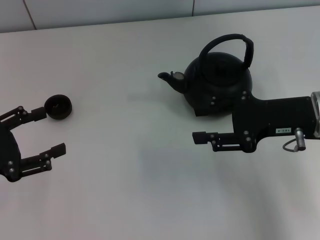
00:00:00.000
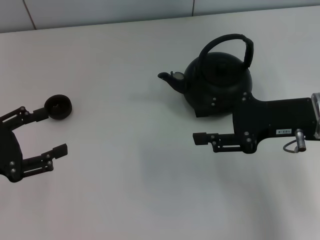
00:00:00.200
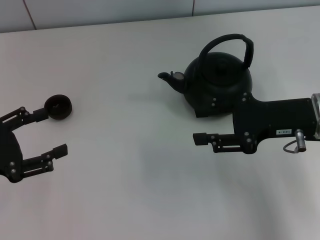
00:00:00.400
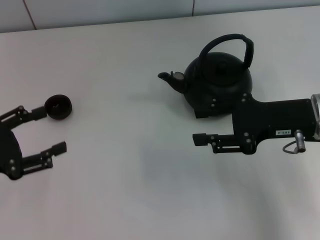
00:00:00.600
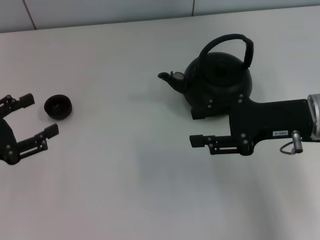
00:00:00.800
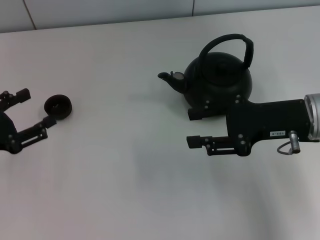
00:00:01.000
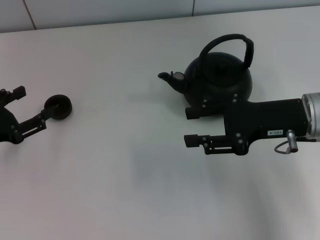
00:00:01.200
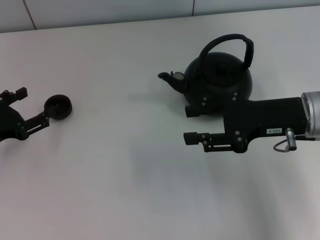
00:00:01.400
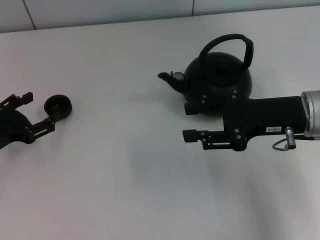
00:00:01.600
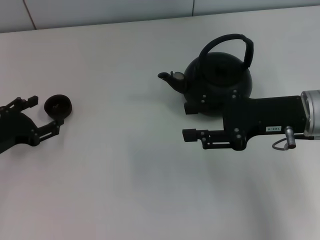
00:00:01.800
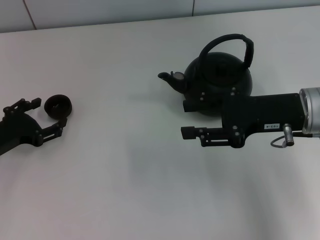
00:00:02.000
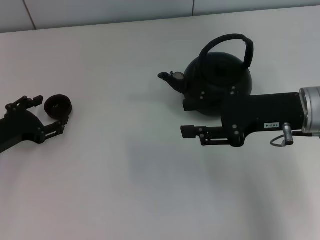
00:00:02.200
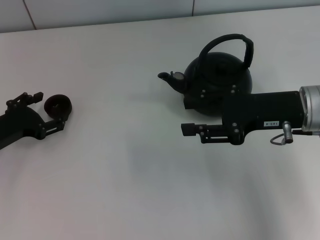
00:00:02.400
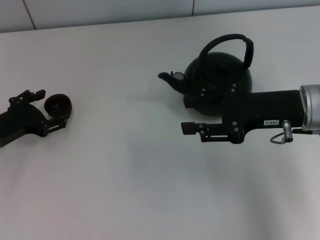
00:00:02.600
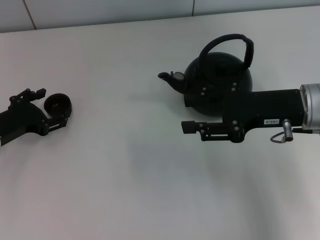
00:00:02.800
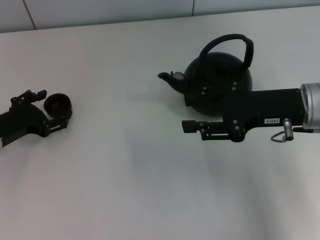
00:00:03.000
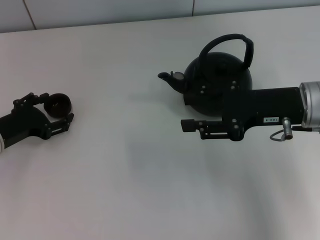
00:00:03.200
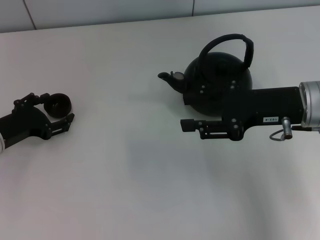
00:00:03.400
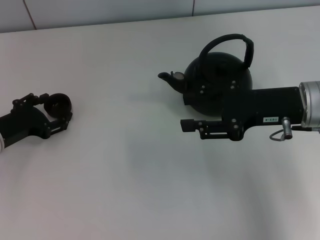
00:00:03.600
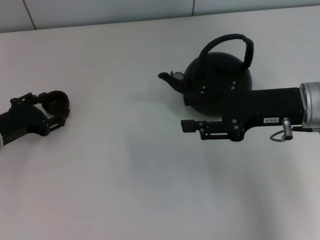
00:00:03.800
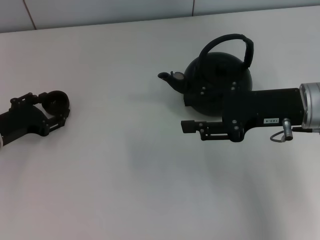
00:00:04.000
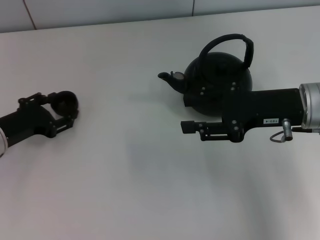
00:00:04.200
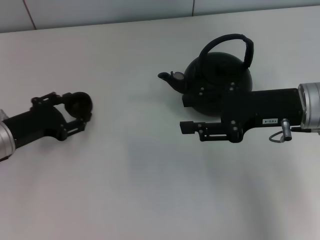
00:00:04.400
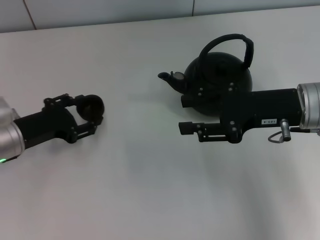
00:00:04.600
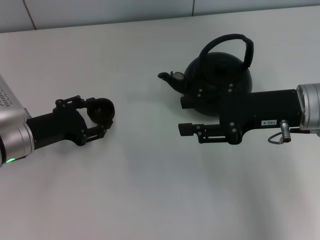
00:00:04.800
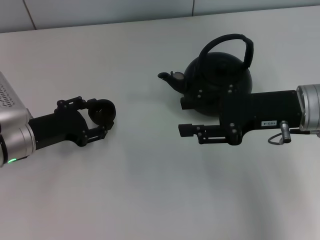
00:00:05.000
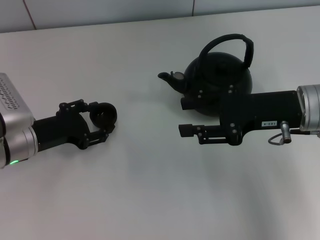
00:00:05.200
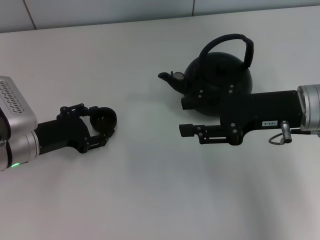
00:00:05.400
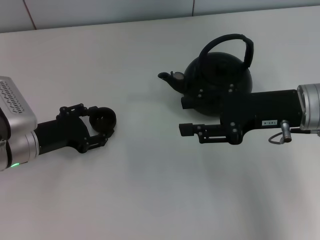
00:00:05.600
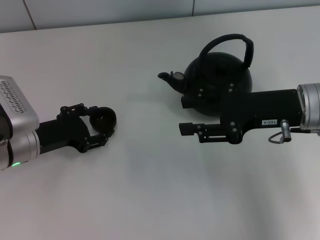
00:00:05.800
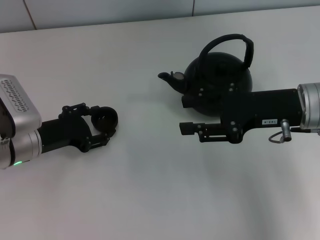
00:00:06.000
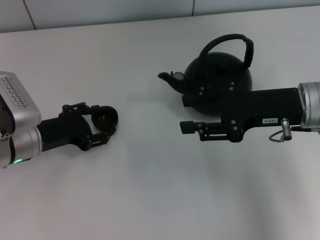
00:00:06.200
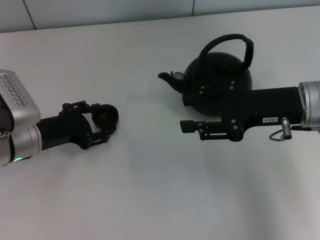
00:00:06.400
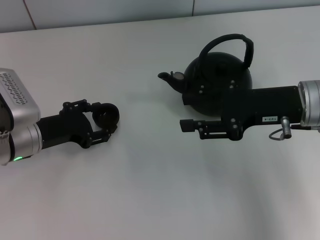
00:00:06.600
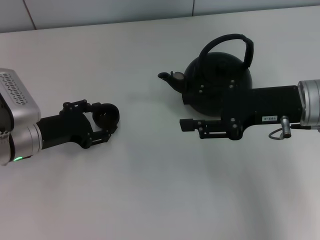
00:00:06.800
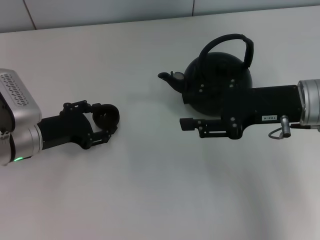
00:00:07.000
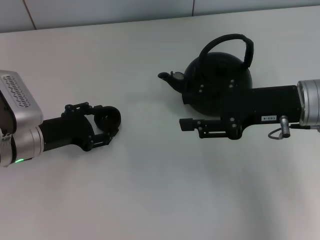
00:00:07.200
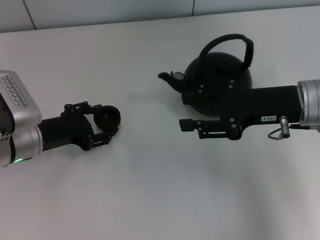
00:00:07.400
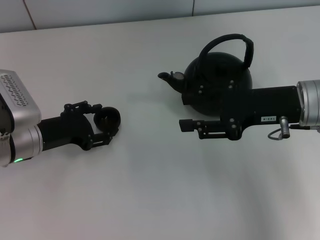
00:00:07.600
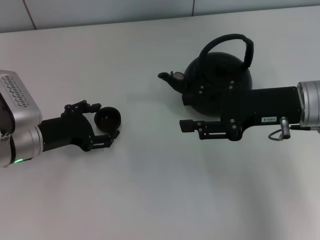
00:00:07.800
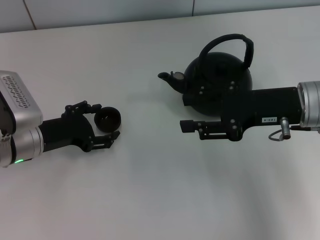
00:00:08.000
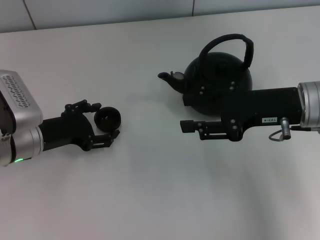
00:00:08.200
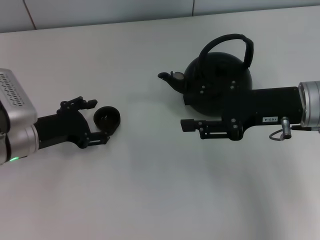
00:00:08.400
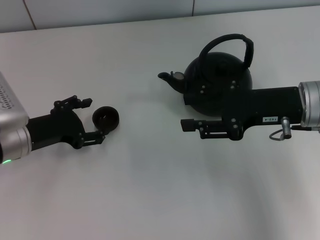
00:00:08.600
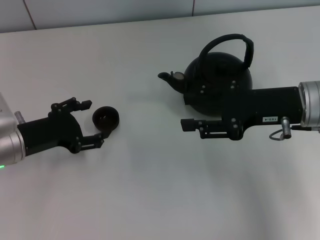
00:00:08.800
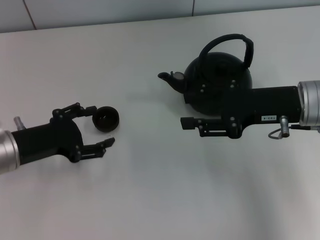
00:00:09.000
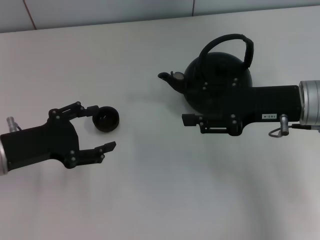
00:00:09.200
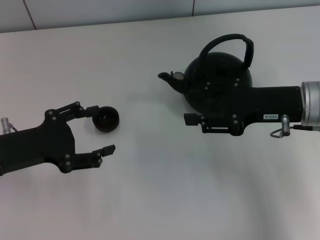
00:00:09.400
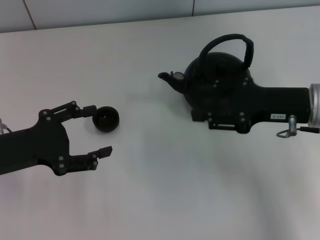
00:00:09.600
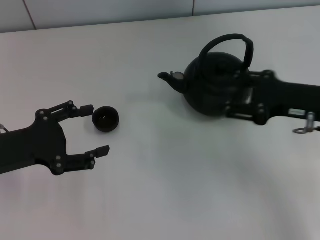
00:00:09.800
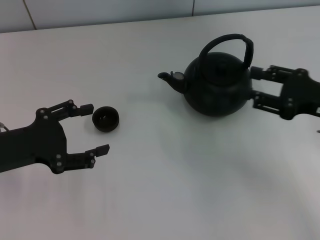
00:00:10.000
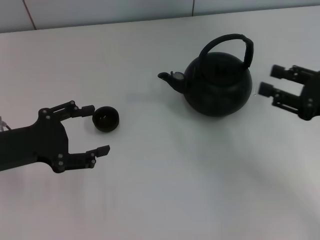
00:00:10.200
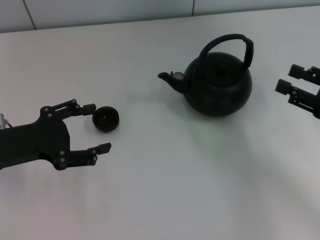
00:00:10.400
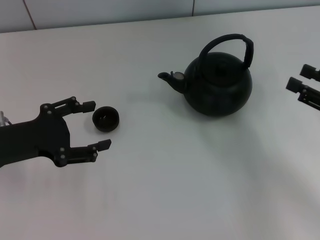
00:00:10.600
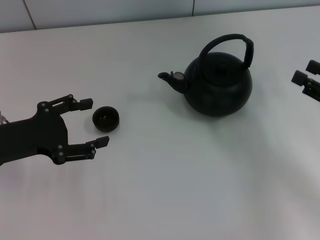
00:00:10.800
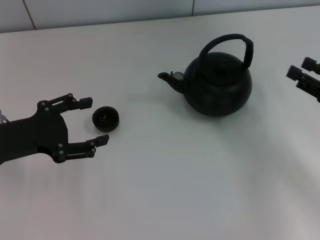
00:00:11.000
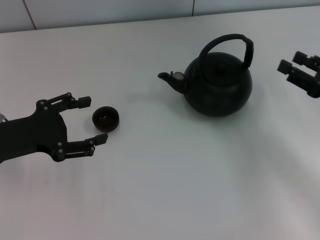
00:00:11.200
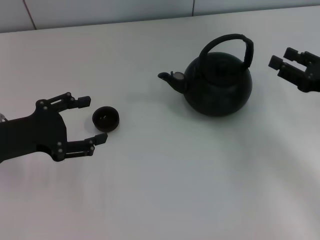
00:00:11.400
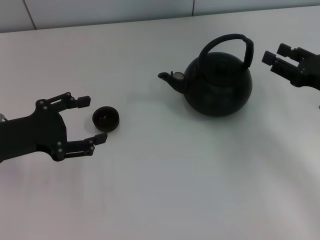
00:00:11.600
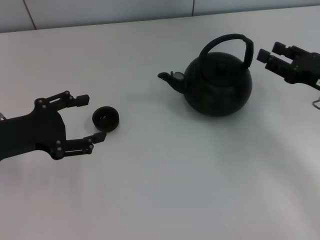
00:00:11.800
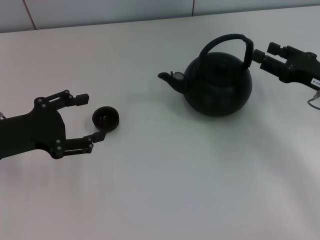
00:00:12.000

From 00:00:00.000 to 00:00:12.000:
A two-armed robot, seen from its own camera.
Task of the whole recording: Grasp the handle of the teapot with one hand and pour tea into the teacup.
Step, from 00:00:00.000 to 00:00:04.200: Pick up the teacup with the left gripper.
Step, from 00:00:04.400 to 00:00:08.800: Place the teacup in the center of view with the left gripper.
From 00:00:00.000 to 00:00:01.600: The left gripper moves downward and forward, some 10 cm.
From 00:00:01.600 to 00:00:03.000: The grippers move only a little.
From 00:00:03.000 to 00:00:04.400: The left gripper closes its fingers.
From 00:00:04.400 to 00:00:06.000: The grippers stay close to where they were, moving slightly.
From 00:00:06.000 to 00:00:07.600: Both grippers stay about where they are.
From 00:00:07.600 to 00:00:09.000: The left gripper opens.
From 00:00:09.000 to 00:00:10.400: The left gripper changes place by approximately 5 cm; the right gripper is displaced to the right and backward by about 15 cm.
From 00:00:10.400 to 00:00:12.000: The right gripper moves forward, roughly 5 cm.

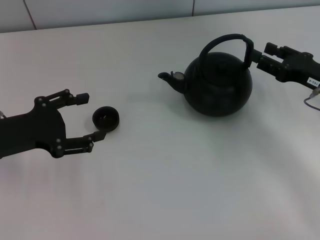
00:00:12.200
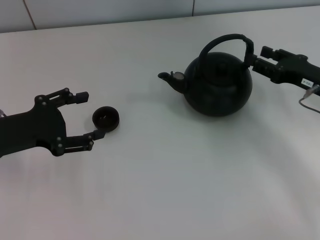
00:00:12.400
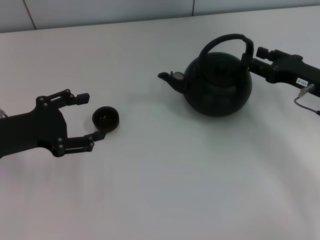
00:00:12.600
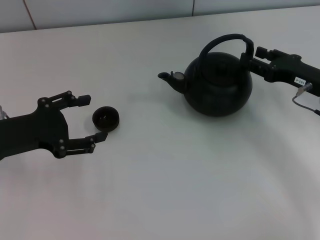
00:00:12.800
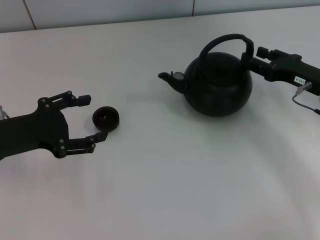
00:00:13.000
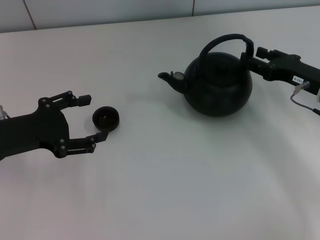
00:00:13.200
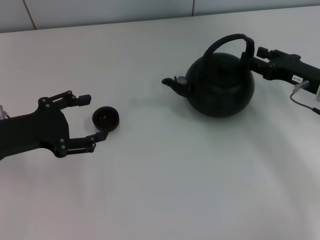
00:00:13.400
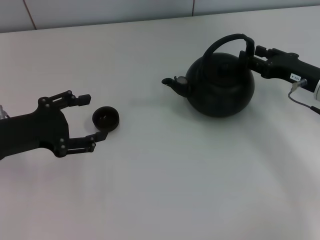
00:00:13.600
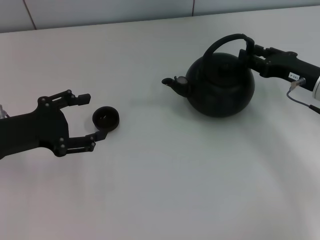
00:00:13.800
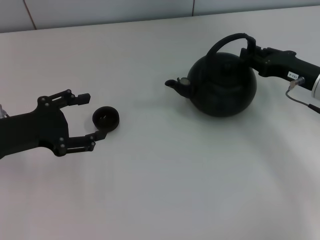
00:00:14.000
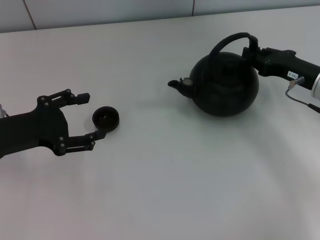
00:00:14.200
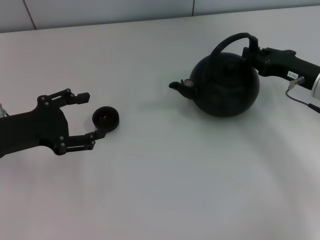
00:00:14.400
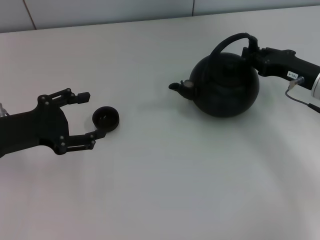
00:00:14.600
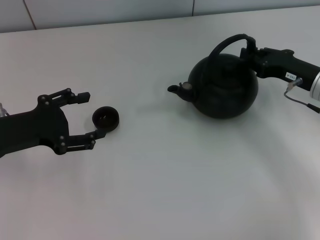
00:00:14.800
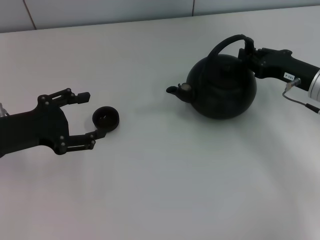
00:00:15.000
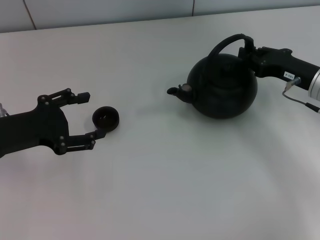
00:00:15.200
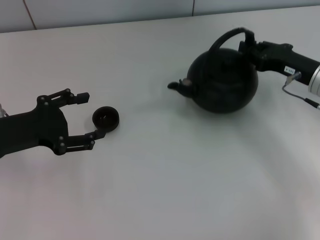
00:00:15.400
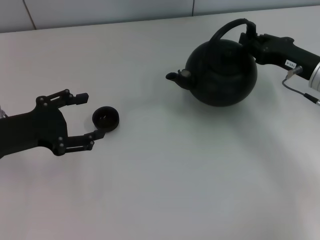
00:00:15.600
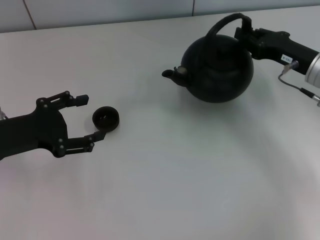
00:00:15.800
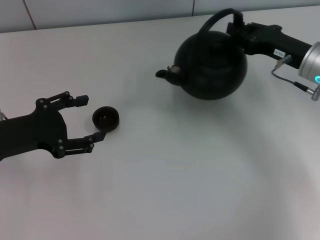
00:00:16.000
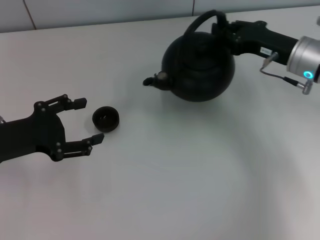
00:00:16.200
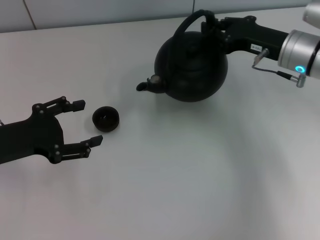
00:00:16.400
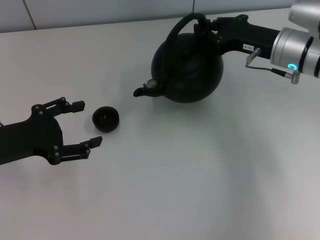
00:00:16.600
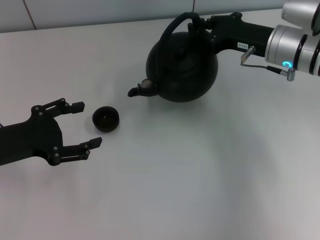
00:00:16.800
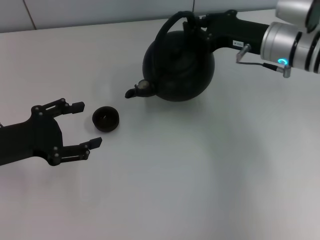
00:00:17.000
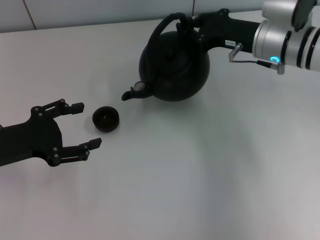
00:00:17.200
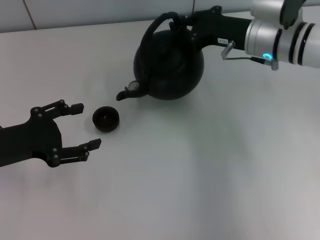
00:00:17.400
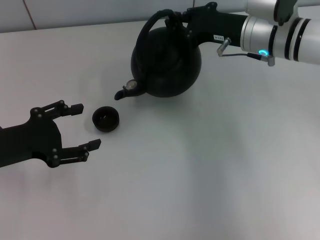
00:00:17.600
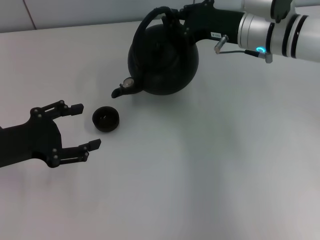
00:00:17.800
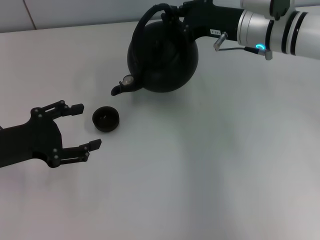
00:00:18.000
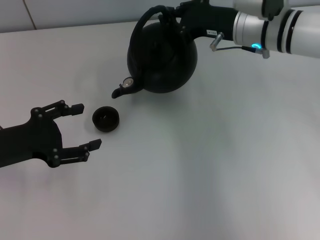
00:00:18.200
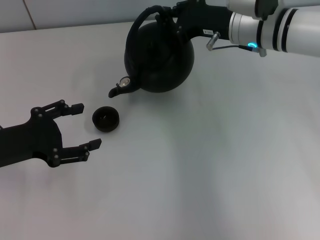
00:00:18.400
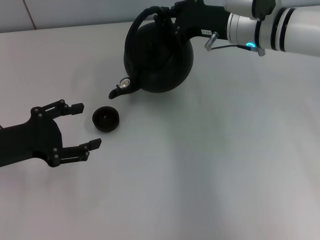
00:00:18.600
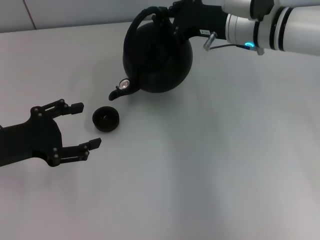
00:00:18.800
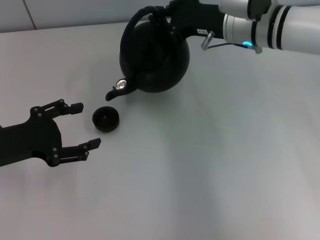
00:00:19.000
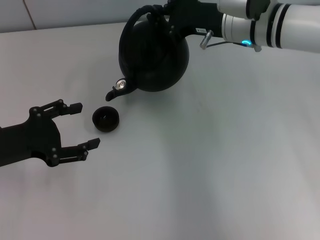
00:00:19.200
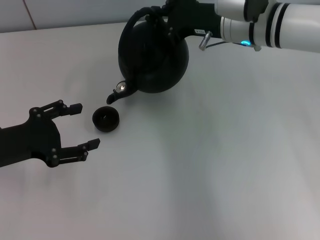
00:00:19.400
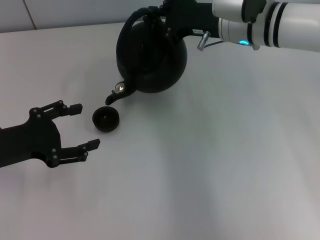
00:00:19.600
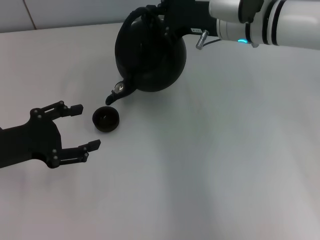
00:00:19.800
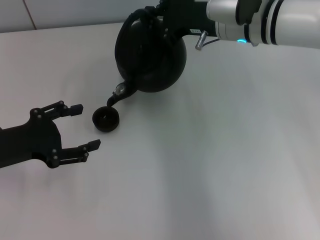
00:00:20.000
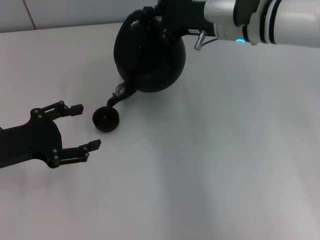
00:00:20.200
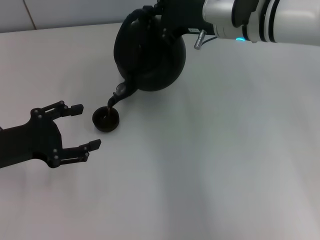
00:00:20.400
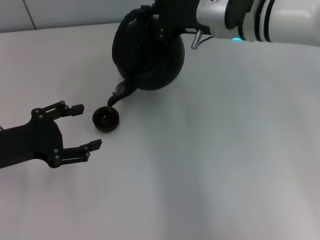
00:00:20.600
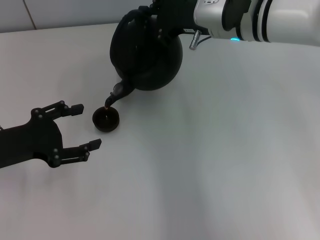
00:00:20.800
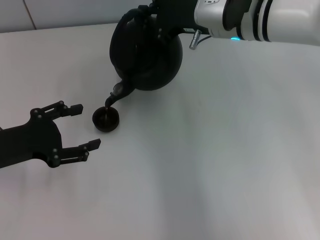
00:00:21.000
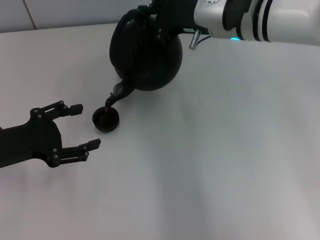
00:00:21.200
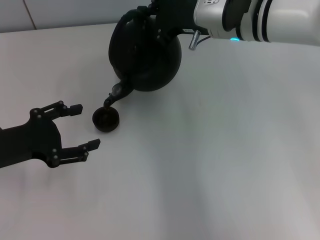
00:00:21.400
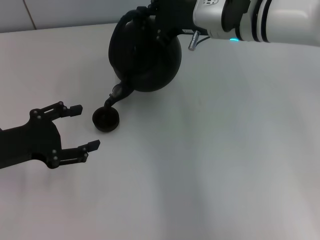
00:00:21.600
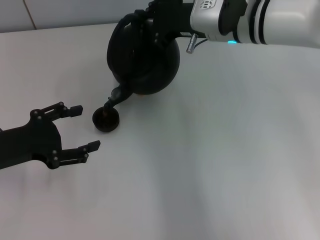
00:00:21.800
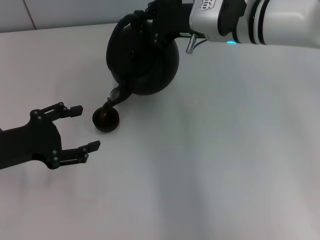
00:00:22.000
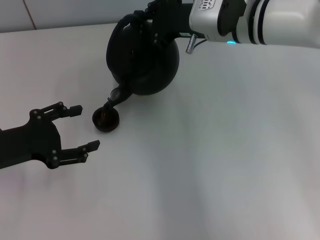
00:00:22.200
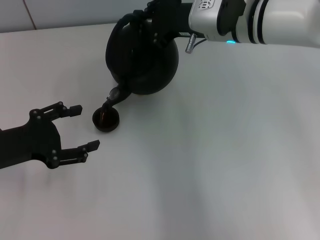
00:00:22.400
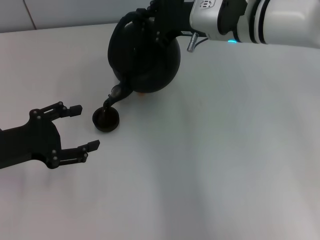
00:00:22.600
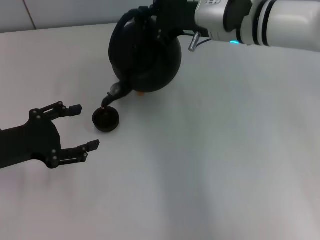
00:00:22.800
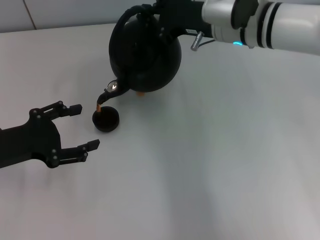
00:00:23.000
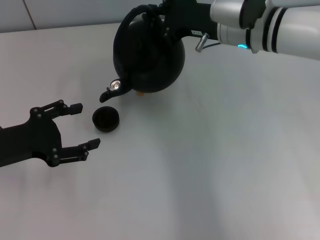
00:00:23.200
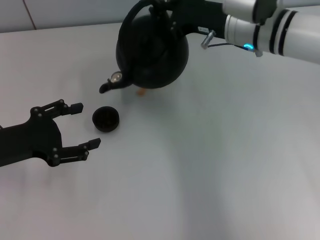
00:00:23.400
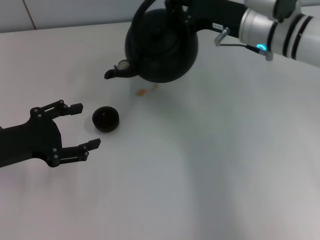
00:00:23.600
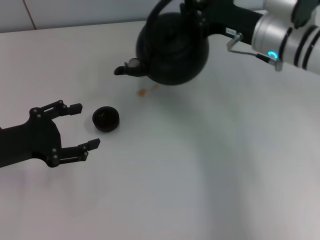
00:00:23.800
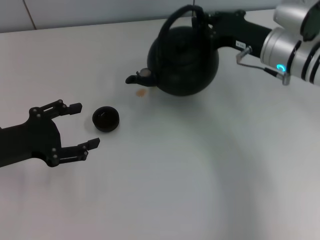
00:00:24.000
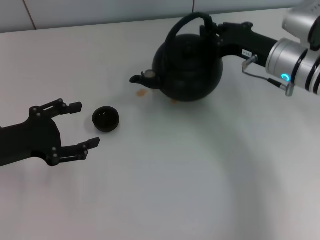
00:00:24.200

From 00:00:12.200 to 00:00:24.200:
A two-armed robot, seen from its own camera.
Task of the whole recording: Grasp the handle of the teapot with one hand and pour tea into the teacup.
Step, from 00:00:12.200 to 00:00:15.600: Pick up the teapot with the right gripper.
From 00:00:12.200 to 00:00:13.800: The grippers stay close to where they were, moving slightly.
From 00:00:13.800 to 00:00:15.200: The right gripper closes.
From 00:00:15.200 to 00:00:16.600: The right gripper shifts some 5 cm to the left.
From 00:00:16.600 to 00:00:18.200: The right gripper is displaced to the left by approximately 5 cm.
From 00:00:18.200 to 00:00:21.200: There are only small adjustments of the grippers.
From 00:00:21.200 to 00:00:22.600: Both grippers stay about where they are.
From 00:00:22.600 to 00:00:24.200: The right gripper moves to the right and downward, about 10 cm.
